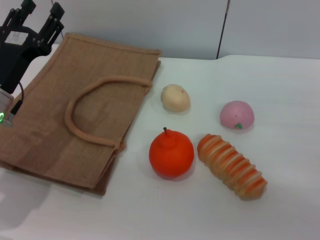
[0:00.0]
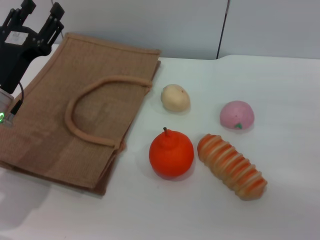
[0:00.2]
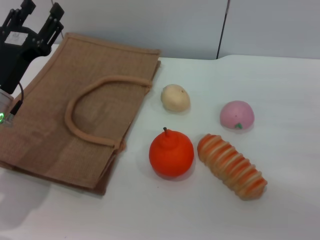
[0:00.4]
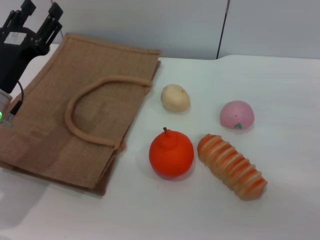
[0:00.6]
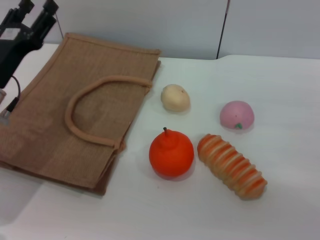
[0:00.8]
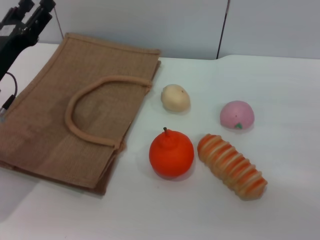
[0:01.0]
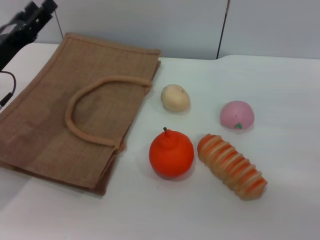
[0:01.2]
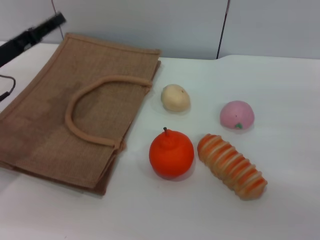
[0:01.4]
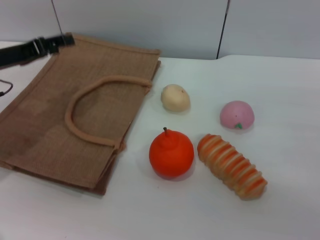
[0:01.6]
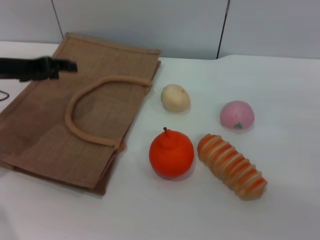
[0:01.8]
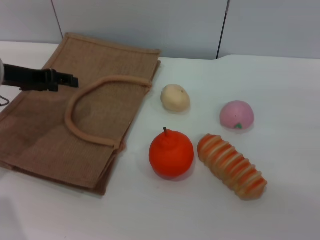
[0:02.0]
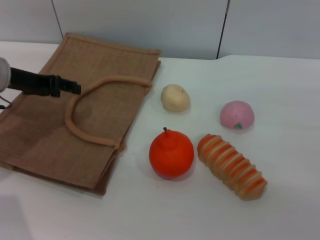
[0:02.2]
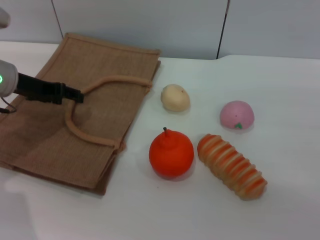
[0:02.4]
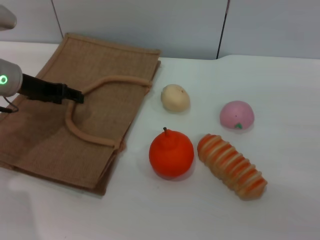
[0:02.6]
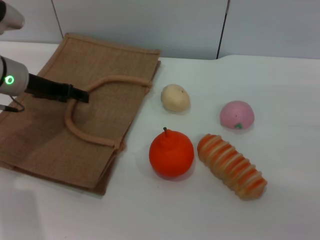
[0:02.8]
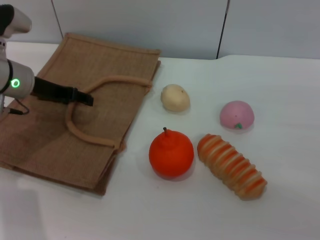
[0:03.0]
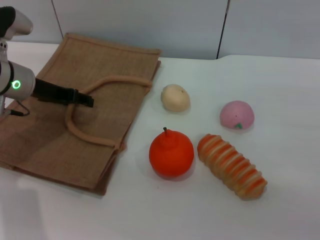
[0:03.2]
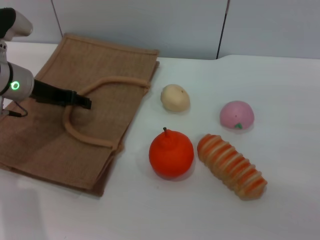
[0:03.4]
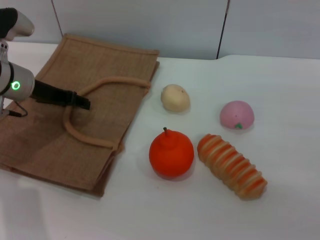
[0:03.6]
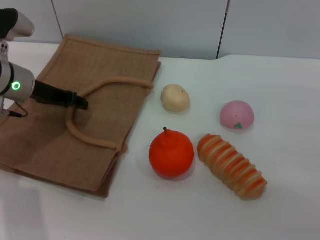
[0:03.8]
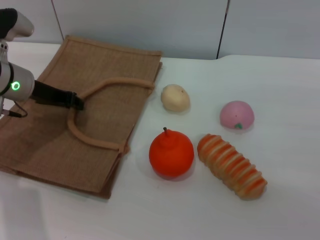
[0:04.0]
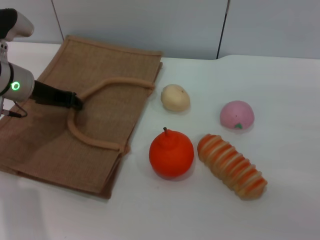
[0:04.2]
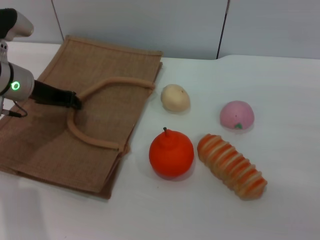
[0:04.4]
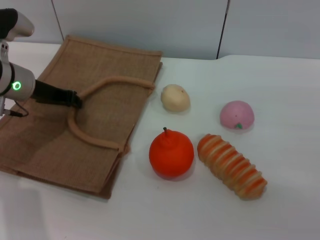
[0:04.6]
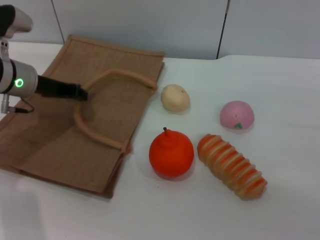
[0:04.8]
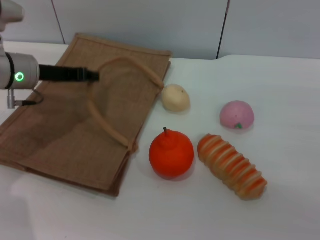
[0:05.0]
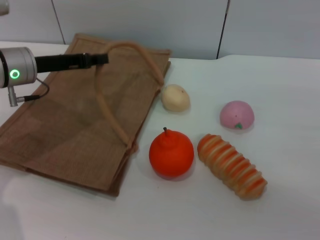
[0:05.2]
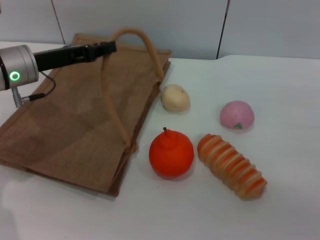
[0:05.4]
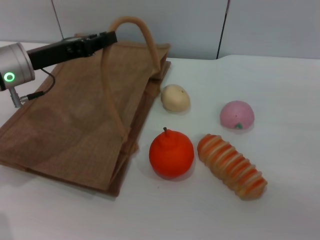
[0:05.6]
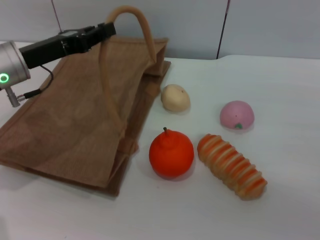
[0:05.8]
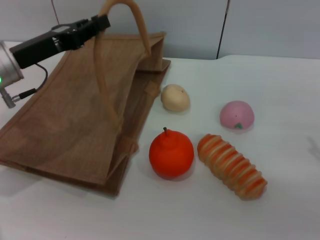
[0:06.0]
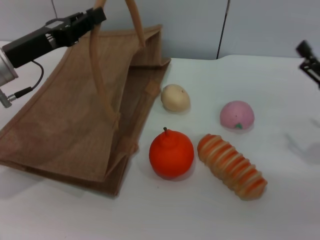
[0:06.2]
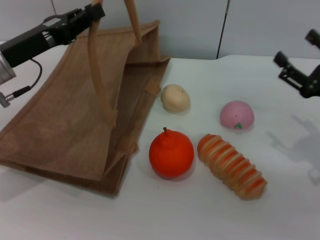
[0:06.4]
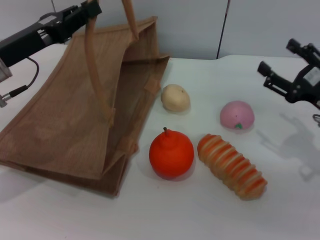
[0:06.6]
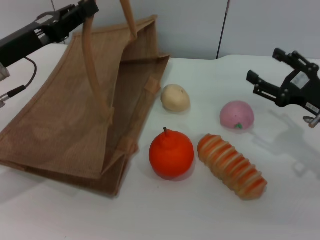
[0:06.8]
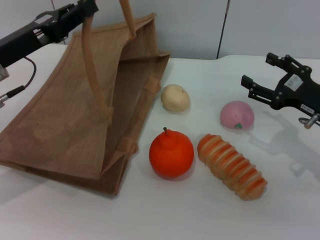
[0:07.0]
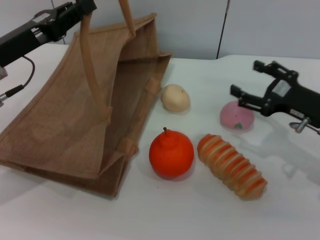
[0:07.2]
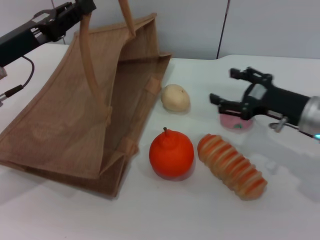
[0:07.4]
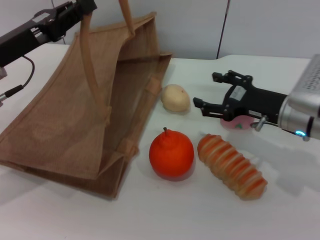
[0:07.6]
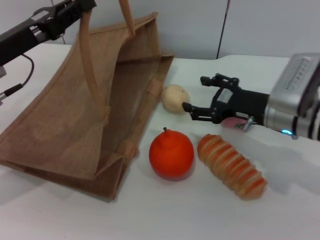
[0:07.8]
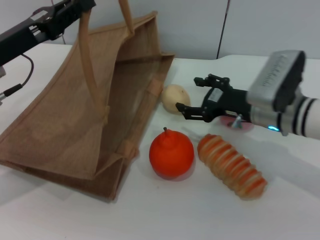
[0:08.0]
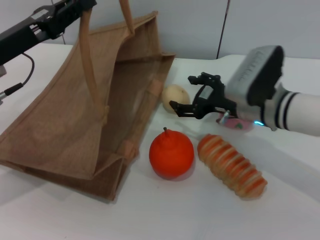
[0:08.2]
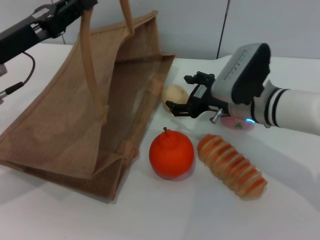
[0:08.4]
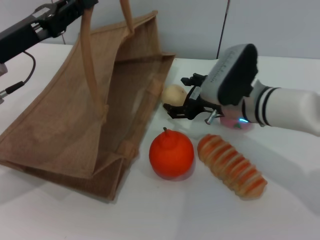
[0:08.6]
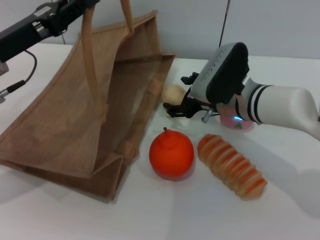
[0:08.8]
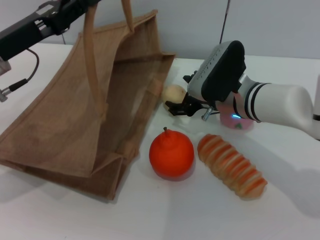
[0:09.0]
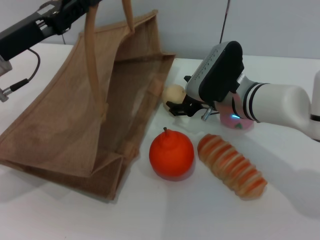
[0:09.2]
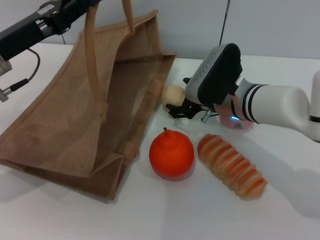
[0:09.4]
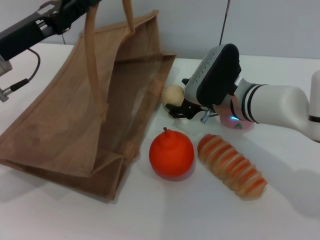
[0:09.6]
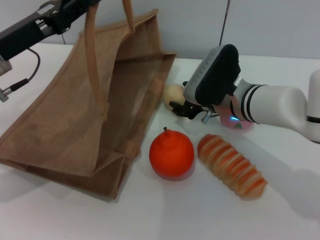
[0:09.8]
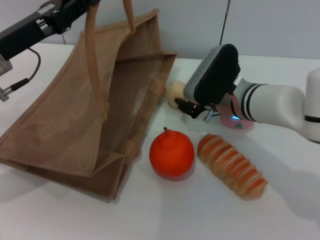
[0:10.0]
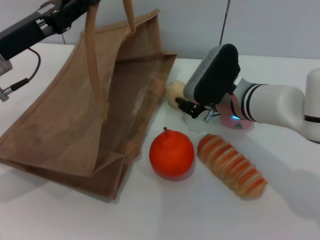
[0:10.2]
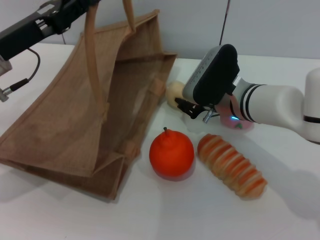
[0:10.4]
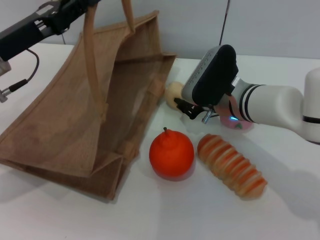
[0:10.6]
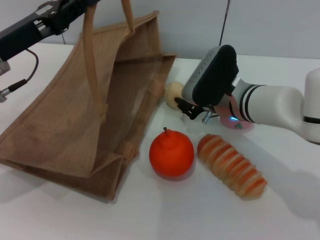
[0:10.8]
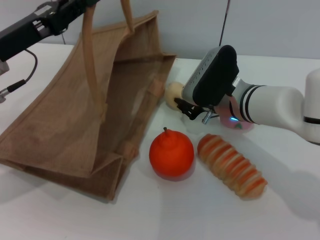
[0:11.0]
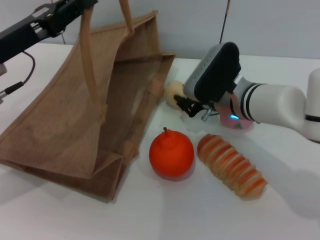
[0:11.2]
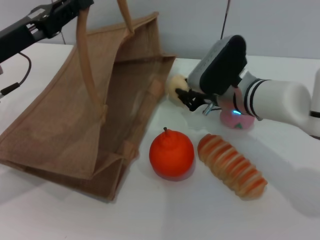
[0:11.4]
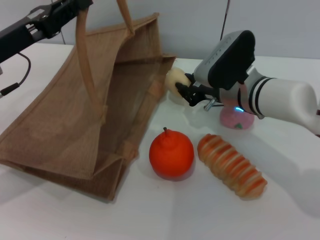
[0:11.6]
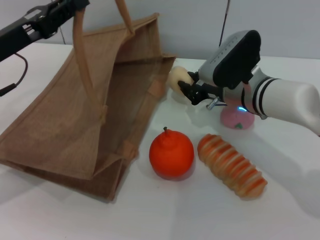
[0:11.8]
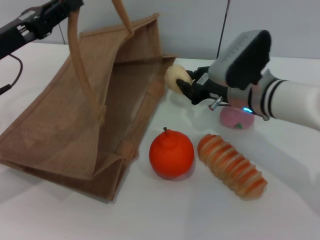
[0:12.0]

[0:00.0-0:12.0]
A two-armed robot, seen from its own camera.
Task of the whole recording: pick up the egg yolk pastry from the table and place it in the brown handbag.
Step, 0.0 to 6.2 s: Lift the woven bag with the left gripper to open it.
Step, 6.4 to 11.6 s: Pick up the egg yolk pastry with the right gripper.
0.0 to 1.6 s: The left gripper heads forward and to the left, covering some 10 cm.
1.6 to 3.0 s: The left gripper ends up approximately 5 cm from where it was.
3.0 to 4.4 s: The left gripper closes up.
4.4 to 6.0 s: The left gripper travels backward by approximately 5 cm.
6.0 to 7.6 s: The right gripper travels to the left and forward by about 15 cm.
7.6 to 9.0 s: The right gripper moves to the left, approximately 10 cm.
9.0 to 10.4 s: The right gripper closes.
10.4 to 12.0 s: The grippers stay close to where they were, moving slightly.

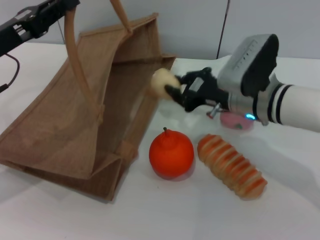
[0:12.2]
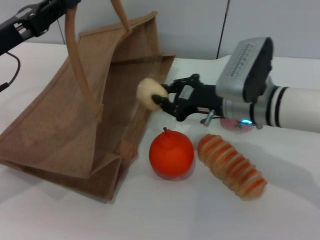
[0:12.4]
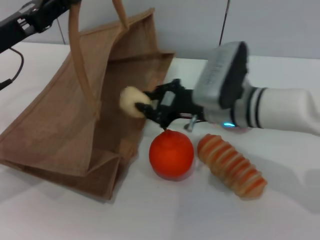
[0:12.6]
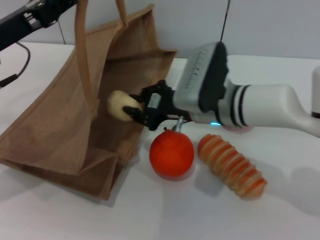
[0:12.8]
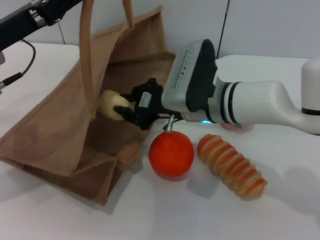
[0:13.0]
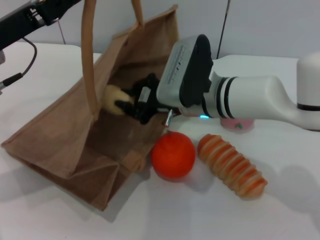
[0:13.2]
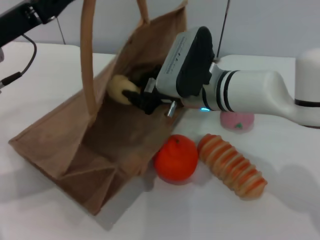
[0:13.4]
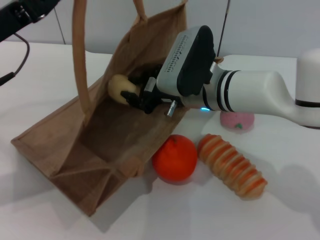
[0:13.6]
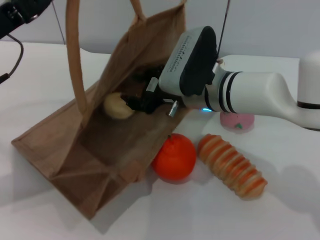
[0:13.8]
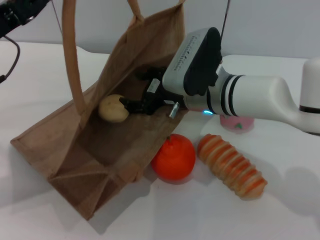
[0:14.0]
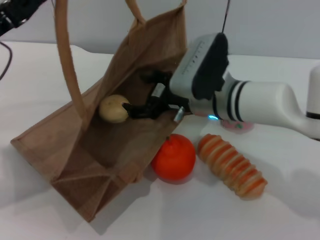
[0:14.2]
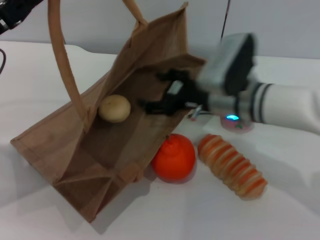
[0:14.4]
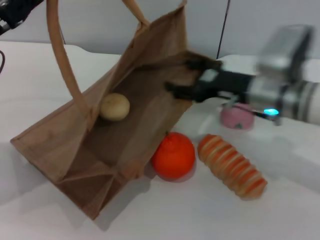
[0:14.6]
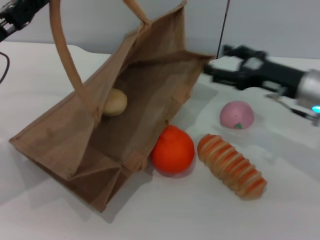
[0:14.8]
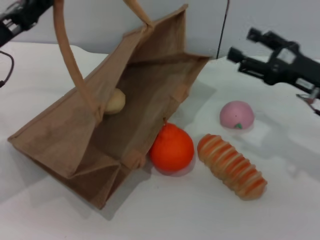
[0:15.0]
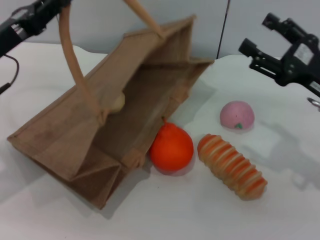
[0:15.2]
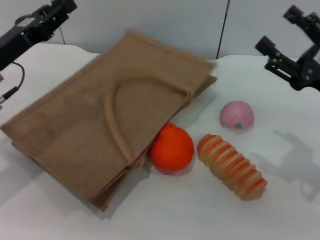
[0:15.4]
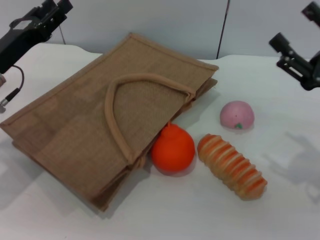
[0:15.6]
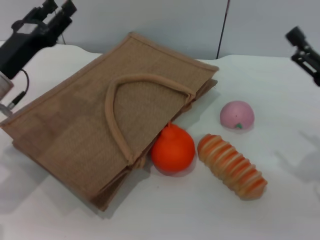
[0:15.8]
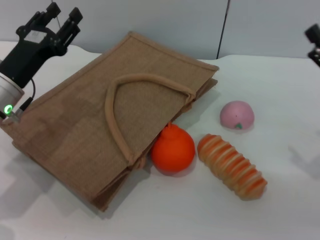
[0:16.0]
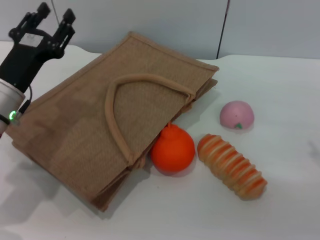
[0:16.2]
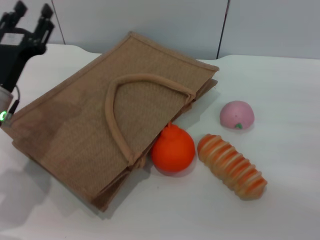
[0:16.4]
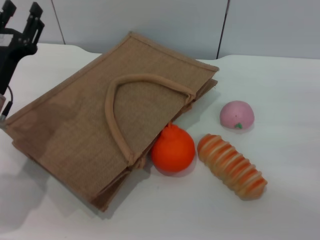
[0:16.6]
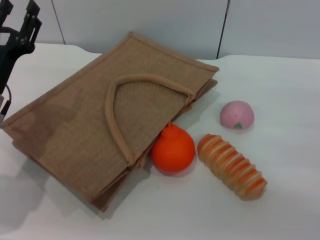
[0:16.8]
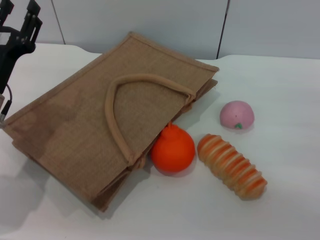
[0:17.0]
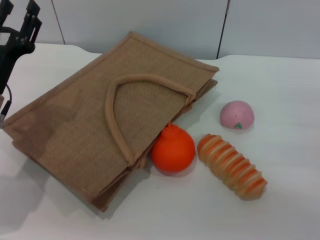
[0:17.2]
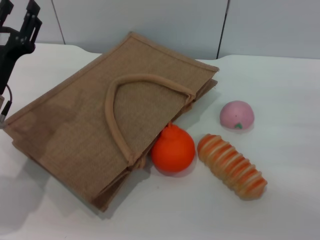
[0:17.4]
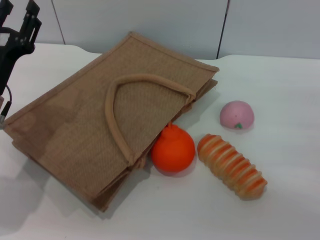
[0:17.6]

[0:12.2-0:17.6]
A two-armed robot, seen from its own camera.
Task of the whole recording: pick up the egg yolk pastry from the table and place it in the brown handbag.
Step, 12.2 to 14.2 s: Place the egg yolk pastry into the woven bag with the right gripper.
Step, 14.4 to 15.6 s: Lower the woven bag with the left gripper to close it.
12.2 to 13.6 s: The right gripper moves to the left, roughly 10 cm.
13.6 to 15.0 s: The right gripper heads to the right, covering about 20 cm, and opens its fingers.
15.0 to 16.2 s: The right gripper moves backward and to the right, approximately 10 cm. Meanwhile the left gripper travels downward by about 5 cm, and opens its fingers.
16.2 to 17.6 s: The grippers move only a little.

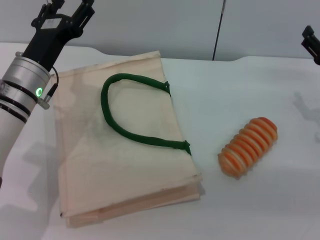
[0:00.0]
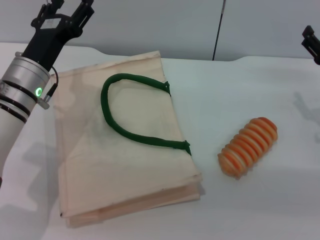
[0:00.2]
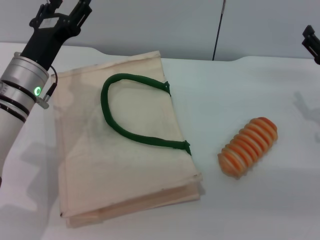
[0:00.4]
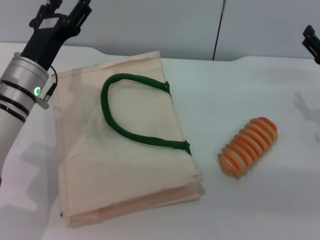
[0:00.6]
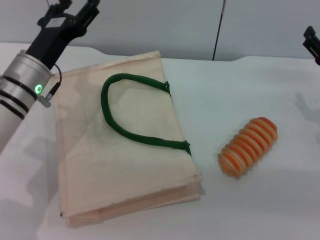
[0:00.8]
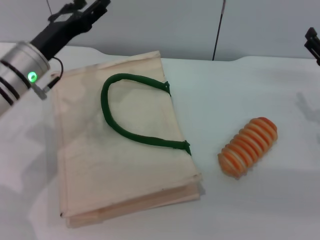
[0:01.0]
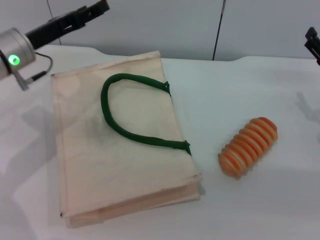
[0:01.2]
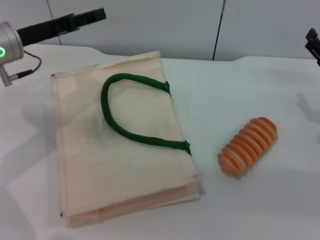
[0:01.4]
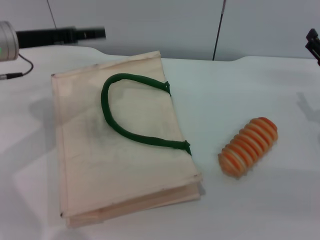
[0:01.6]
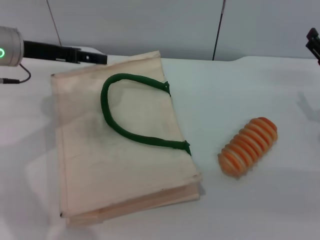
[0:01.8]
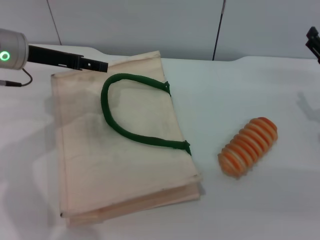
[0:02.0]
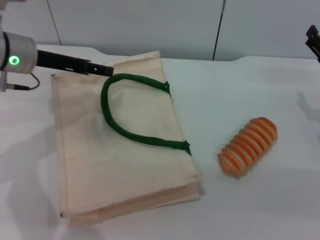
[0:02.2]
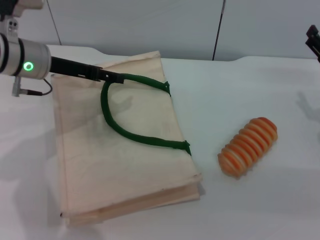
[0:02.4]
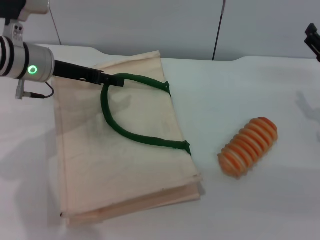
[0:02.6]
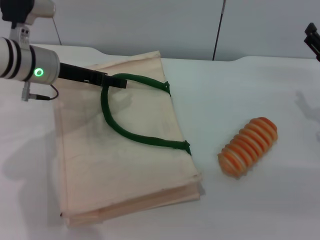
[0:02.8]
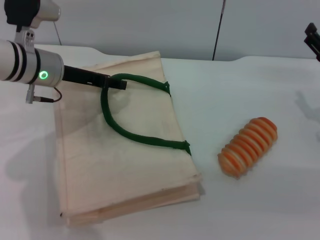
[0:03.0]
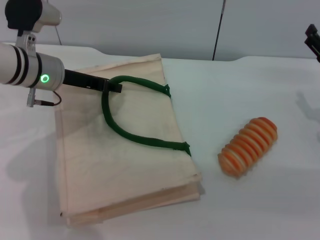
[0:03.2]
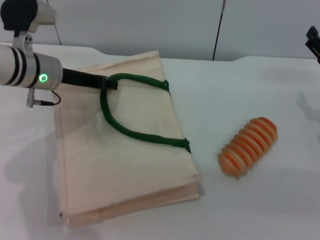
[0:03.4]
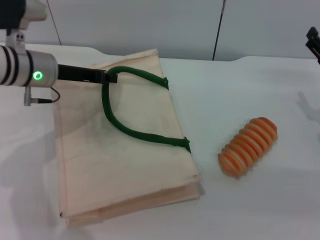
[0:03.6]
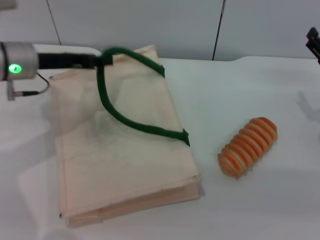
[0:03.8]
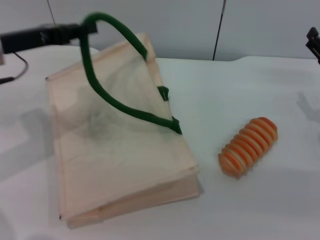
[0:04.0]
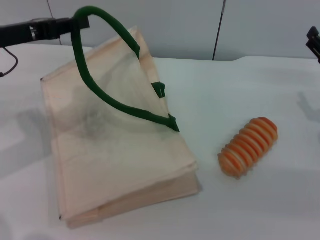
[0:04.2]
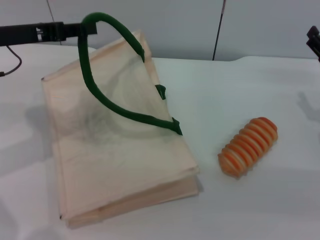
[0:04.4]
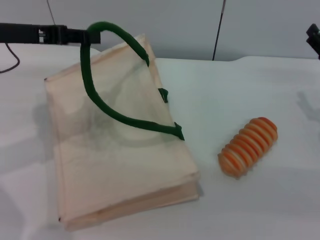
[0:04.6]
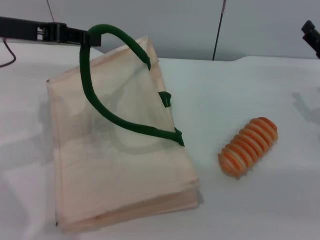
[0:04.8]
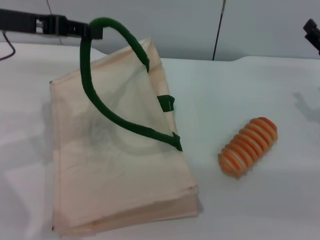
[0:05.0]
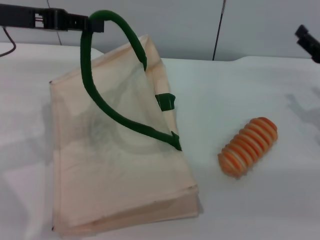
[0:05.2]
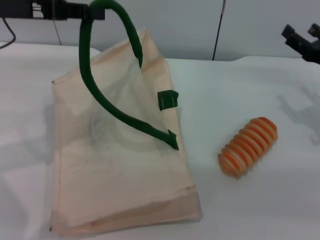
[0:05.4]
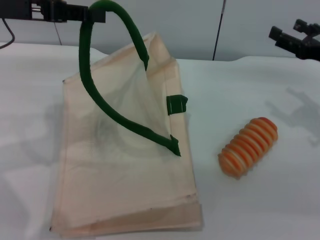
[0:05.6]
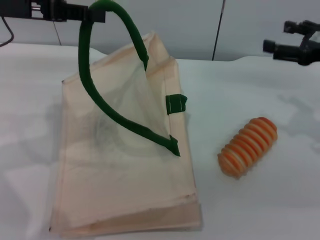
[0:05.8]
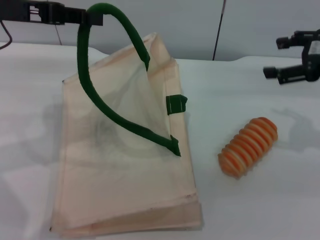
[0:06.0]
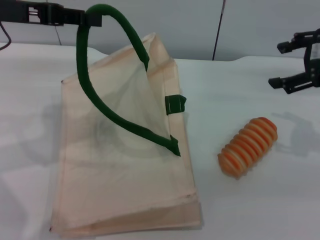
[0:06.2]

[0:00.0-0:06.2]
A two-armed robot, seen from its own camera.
Task of the whole recording: pick up the bread from the table and place it in the white handbag.
Step, 0.0 to 5.0 s: Lift the woven bag with the left gripper to open it.
0.0 to 1.6 s: The left gripper shifts some 10 cm upward and to the left.
1.6 to 3.2 s: The left gripper moves to the right, approximately 5 cm.
3.2 to 4.6 s: The left gripper moves upward and to the left, some 10 cm, and closes up.
4.6 to 6.2 s: The right gripper moves upward, roughly 15 cm.
